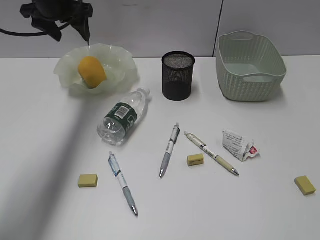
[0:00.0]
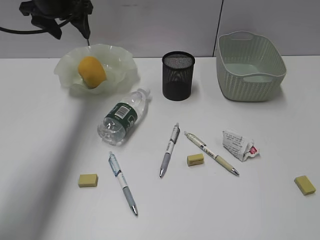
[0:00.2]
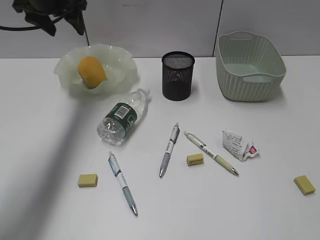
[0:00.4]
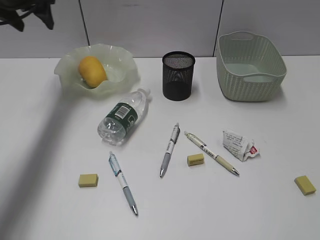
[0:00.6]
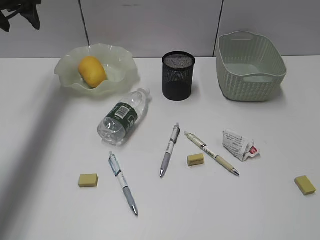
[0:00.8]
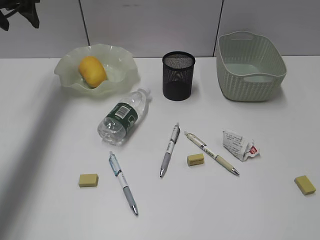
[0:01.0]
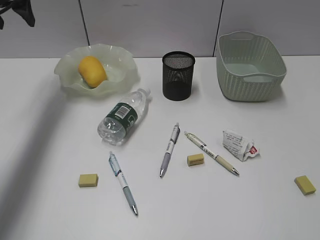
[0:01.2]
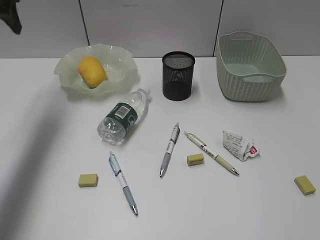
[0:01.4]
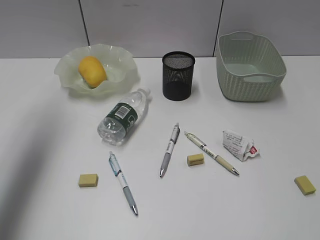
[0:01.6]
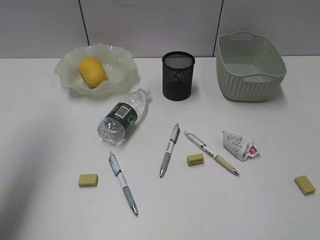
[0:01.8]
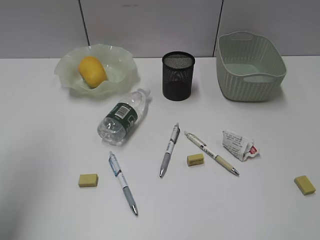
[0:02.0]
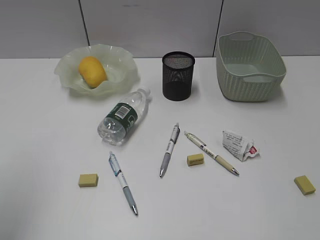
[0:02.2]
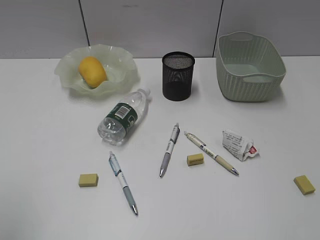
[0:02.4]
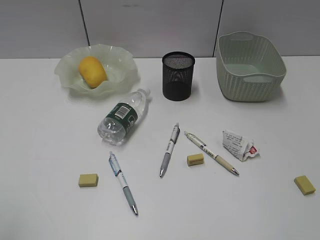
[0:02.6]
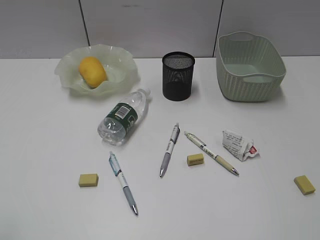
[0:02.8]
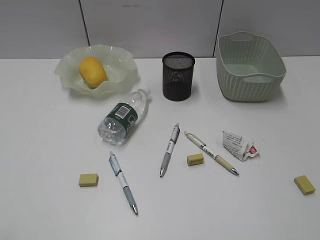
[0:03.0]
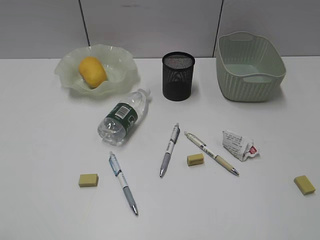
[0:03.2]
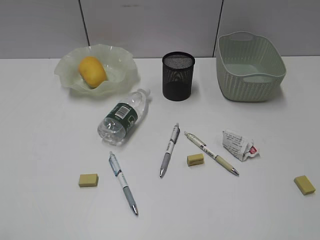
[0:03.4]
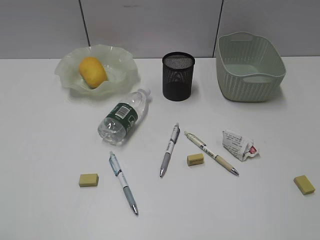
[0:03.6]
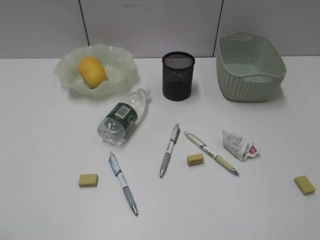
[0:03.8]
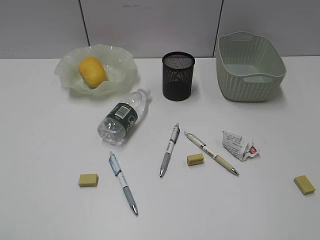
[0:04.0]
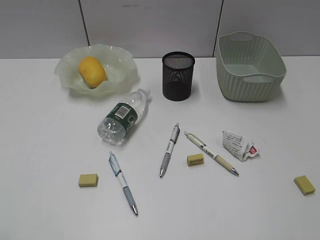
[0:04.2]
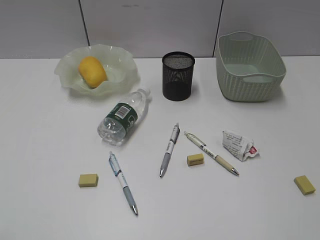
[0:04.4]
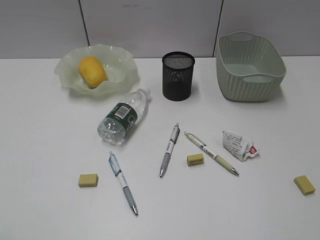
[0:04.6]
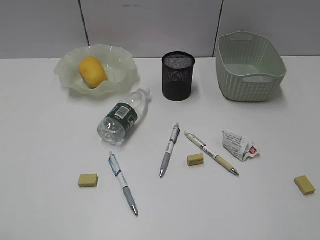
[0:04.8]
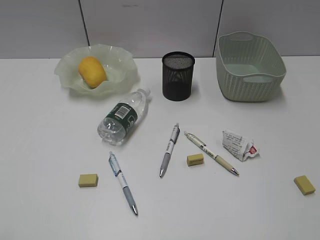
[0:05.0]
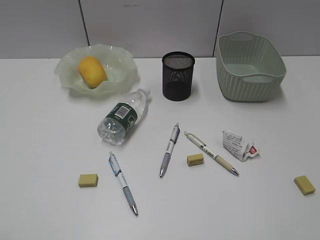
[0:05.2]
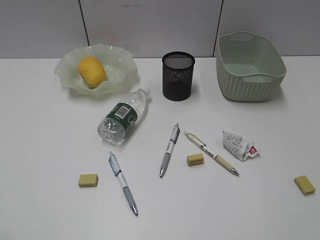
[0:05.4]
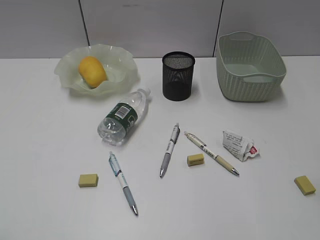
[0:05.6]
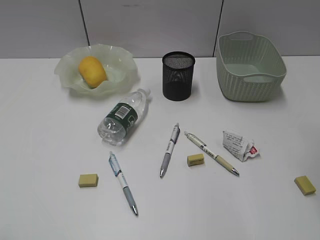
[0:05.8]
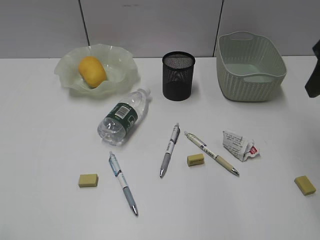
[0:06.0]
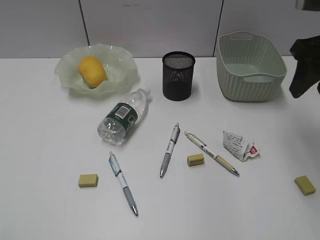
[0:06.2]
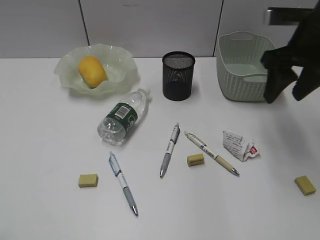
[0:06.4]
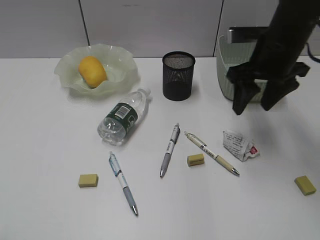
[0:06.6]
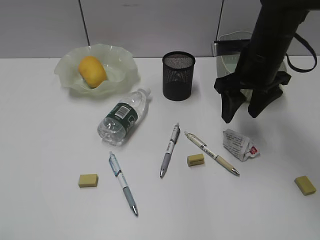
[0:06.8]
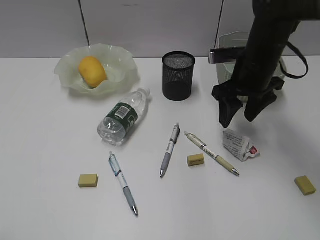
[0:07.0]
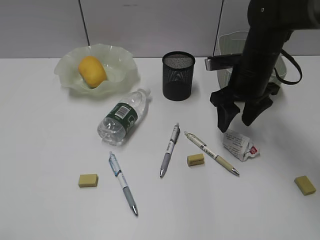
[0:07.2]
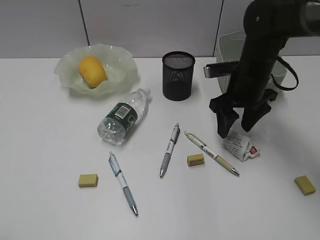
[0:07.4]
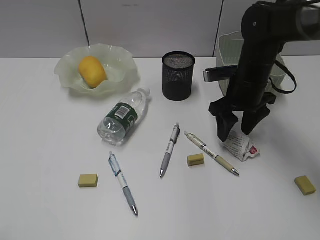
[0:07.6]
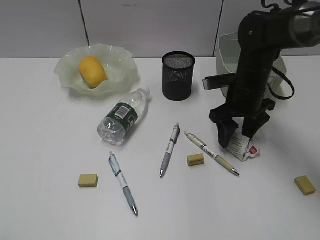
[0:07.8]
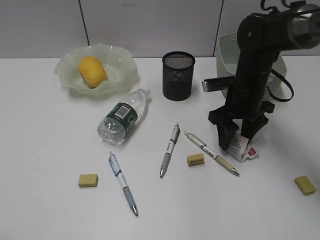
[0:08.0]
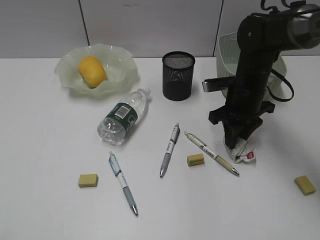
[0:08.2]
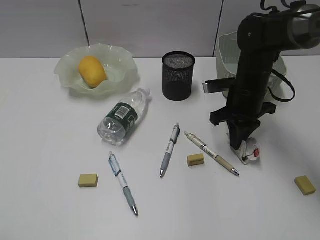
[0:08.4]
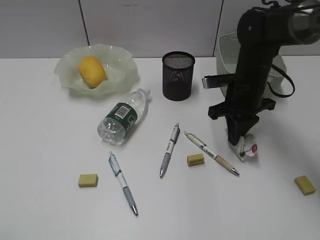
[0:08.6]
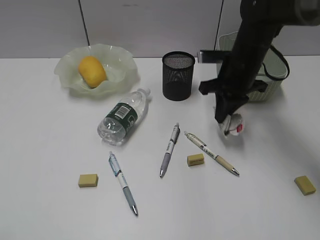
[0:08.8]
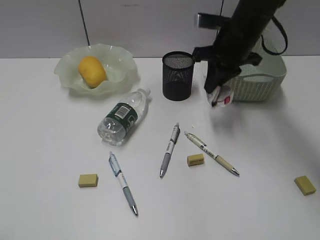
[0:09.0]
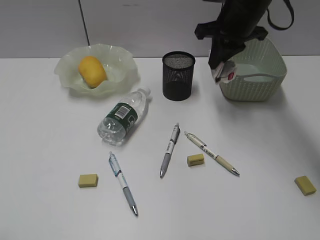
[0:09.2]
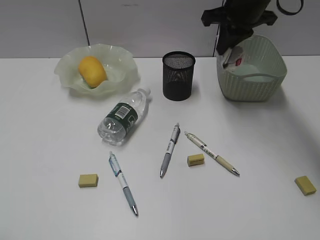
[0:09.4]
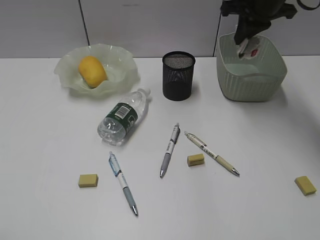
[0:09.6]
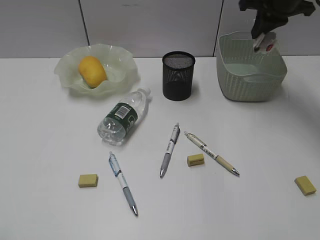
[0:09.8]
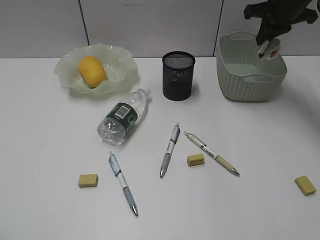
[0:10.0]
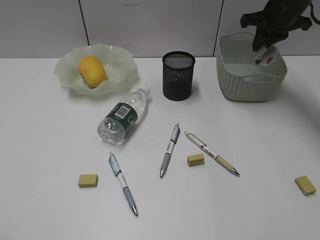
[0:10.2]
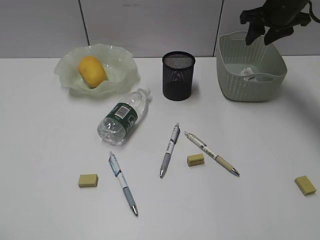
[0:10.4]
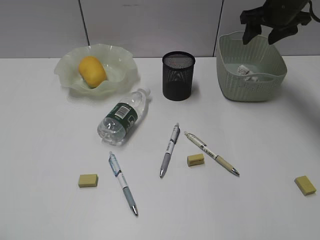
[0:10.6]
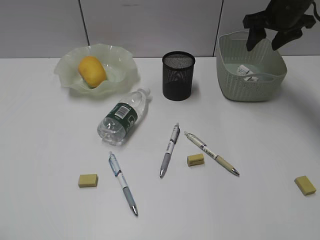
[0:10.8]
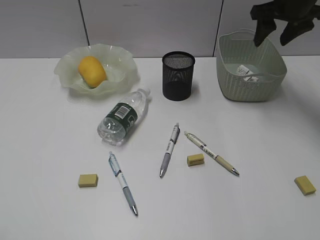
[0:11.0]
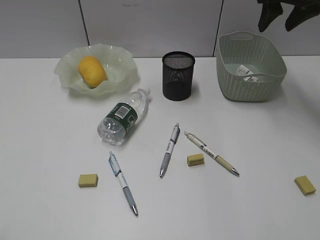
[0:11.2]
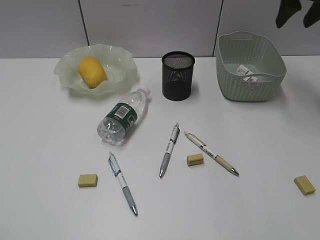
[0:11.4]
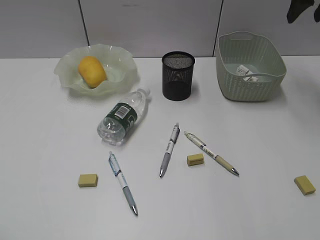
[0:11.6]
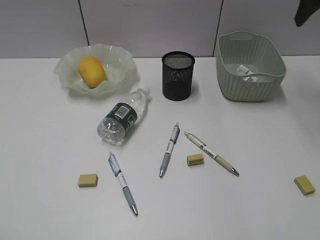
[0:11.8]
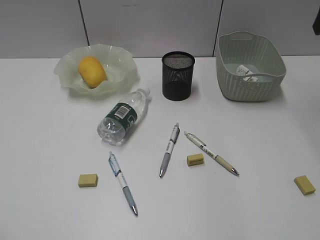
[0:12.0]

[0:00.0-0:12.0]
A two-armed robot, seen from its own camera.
Step, 0:00.0 to 0:08.4: Grasp the waste paper with right gripper.
Step, 0:08.6 to 0:10.6: Place the waste paper in the basket with right gripper.
0:00.0 to 0:01.6: The left gripper heads backward, to the left and upward, covering roughly 20 cm.
0:01.6 to 0:03.0: The left gripper shifts some 35 cm backward.
0:03.0 to 0:04.4: Both grippers stay put.
0:04.4 to 0:06.0: The right gripper travels forward by about 25 cm.
0:06.0 to 0:07.6: The right gripper shifts some 25 cm downward, forward and to the left.
0:07.6 to 0:09.0: The right gripper shifts roughly 5 cm upward, and closes its fingers.
0:09.0 to 0:10.4: The right gripper travels to the right and forward by approximately 15 cm, and opens.
0:10.4 to 0:12.0: The right gripper shifts approximately 15 cm backward and upward.

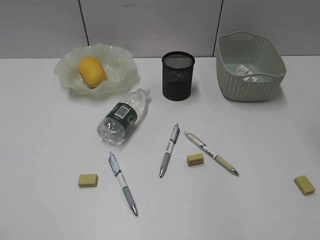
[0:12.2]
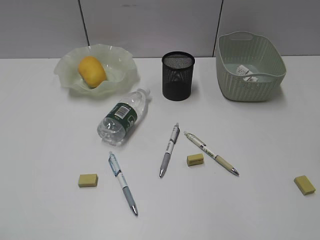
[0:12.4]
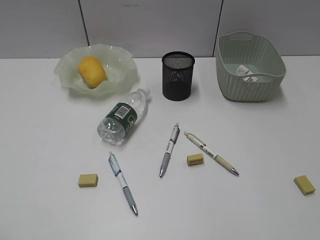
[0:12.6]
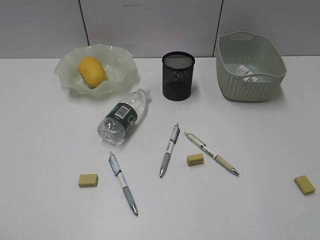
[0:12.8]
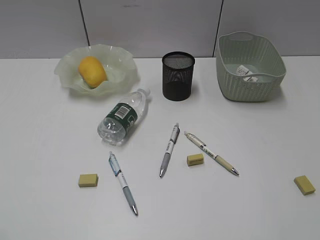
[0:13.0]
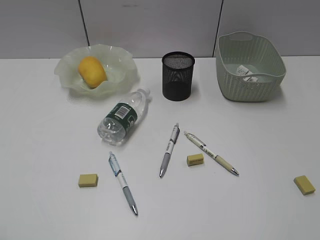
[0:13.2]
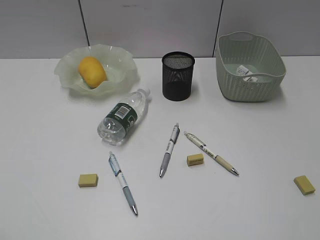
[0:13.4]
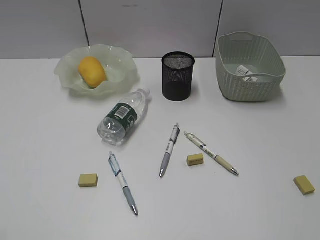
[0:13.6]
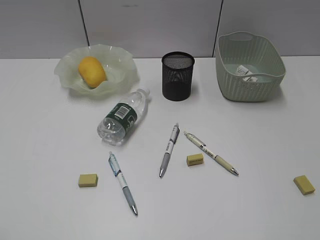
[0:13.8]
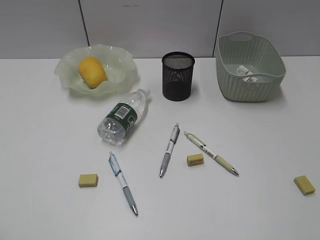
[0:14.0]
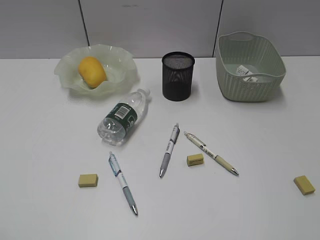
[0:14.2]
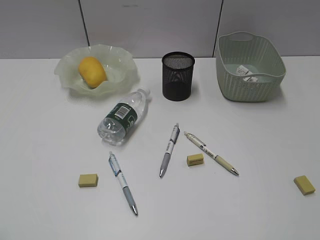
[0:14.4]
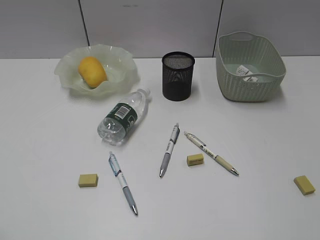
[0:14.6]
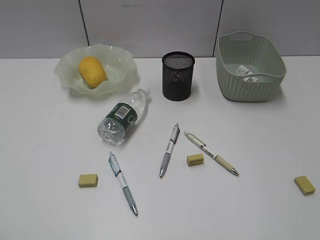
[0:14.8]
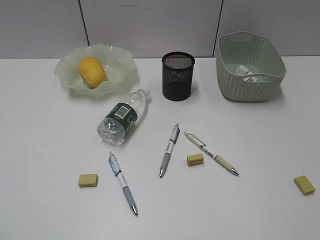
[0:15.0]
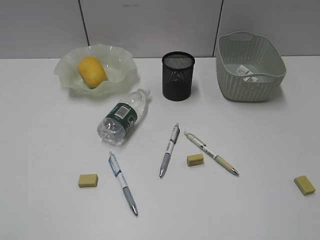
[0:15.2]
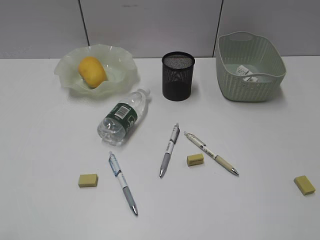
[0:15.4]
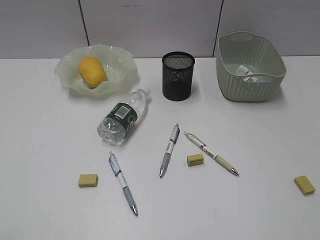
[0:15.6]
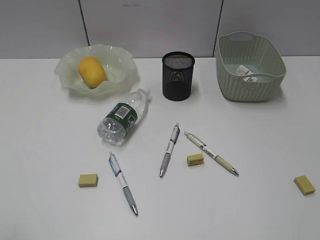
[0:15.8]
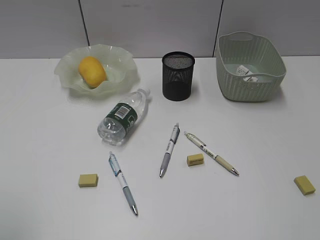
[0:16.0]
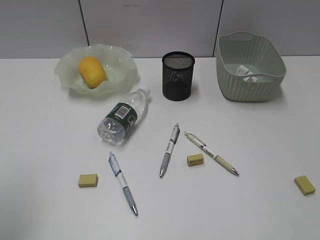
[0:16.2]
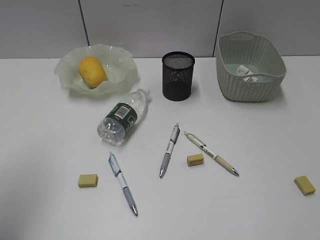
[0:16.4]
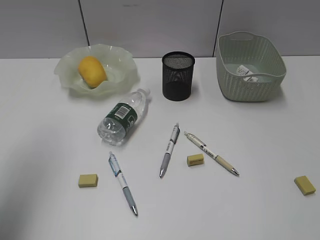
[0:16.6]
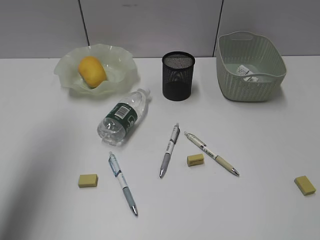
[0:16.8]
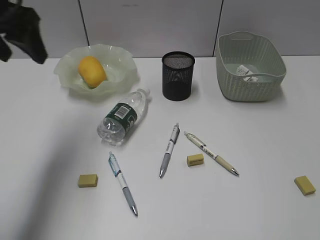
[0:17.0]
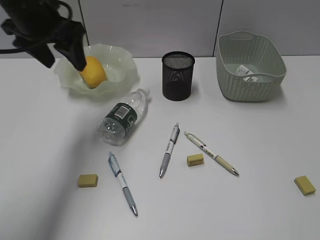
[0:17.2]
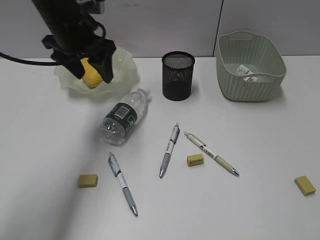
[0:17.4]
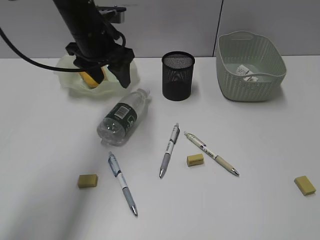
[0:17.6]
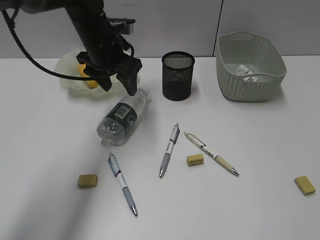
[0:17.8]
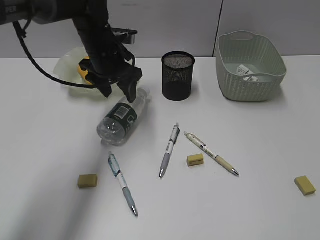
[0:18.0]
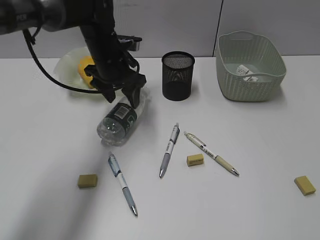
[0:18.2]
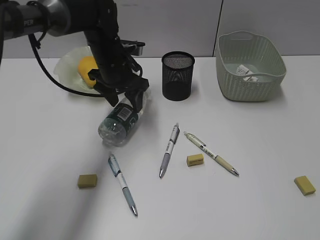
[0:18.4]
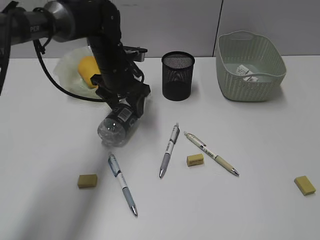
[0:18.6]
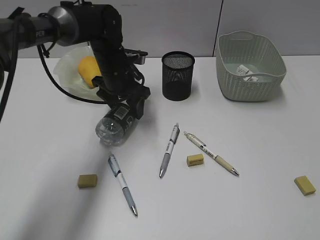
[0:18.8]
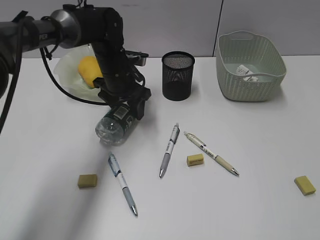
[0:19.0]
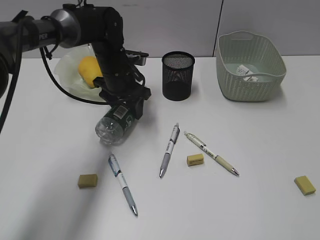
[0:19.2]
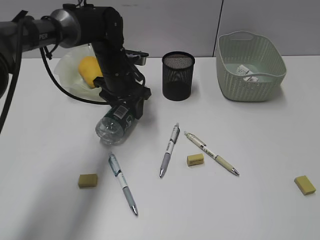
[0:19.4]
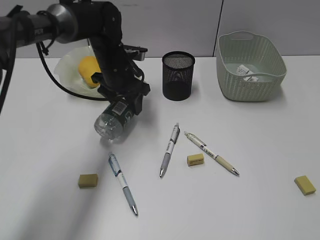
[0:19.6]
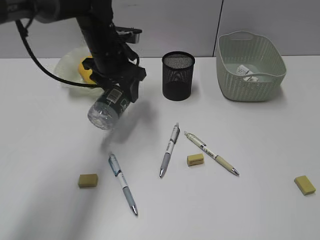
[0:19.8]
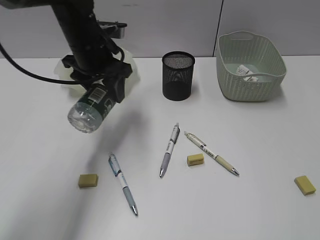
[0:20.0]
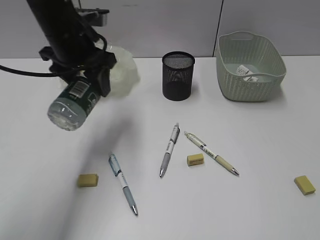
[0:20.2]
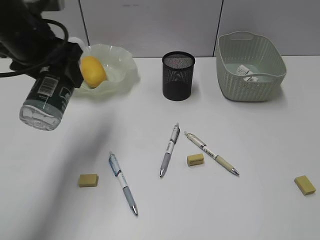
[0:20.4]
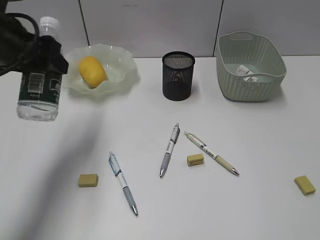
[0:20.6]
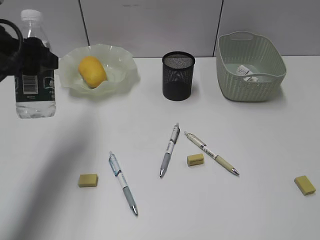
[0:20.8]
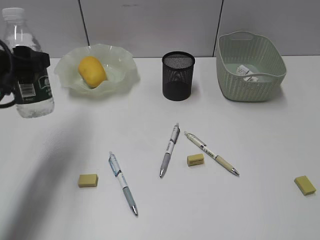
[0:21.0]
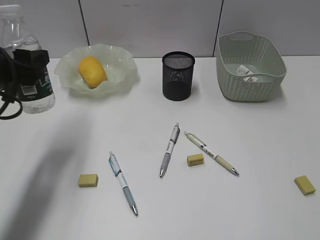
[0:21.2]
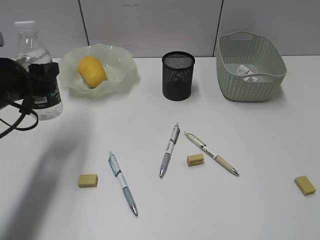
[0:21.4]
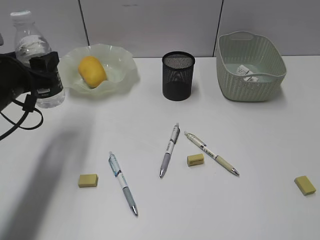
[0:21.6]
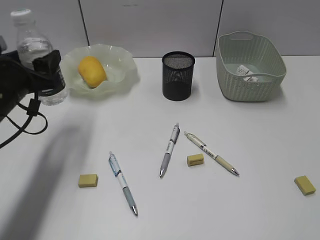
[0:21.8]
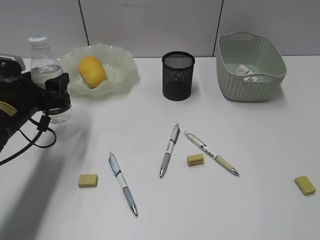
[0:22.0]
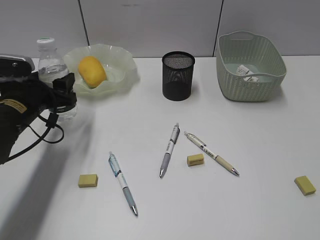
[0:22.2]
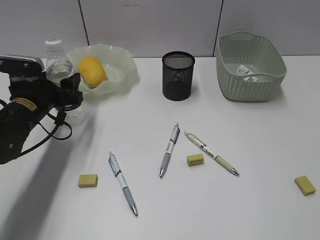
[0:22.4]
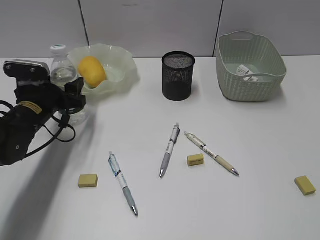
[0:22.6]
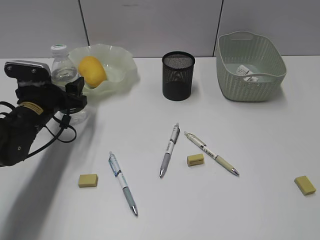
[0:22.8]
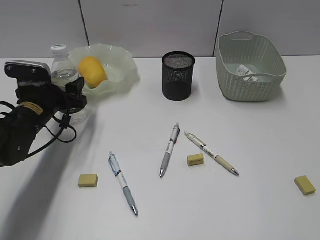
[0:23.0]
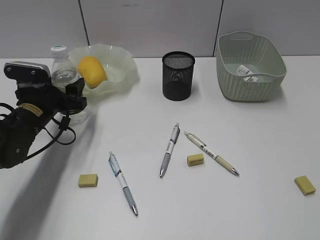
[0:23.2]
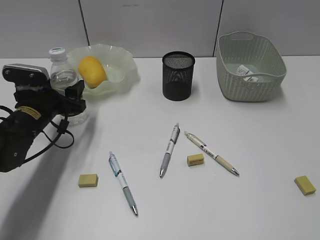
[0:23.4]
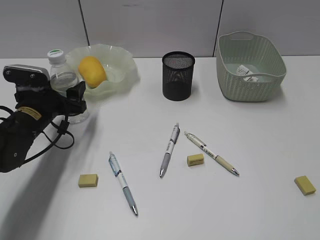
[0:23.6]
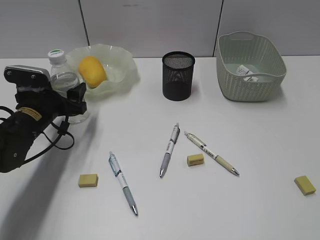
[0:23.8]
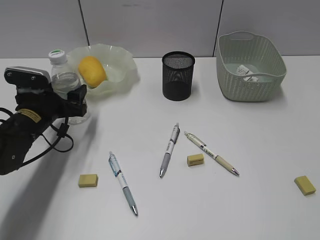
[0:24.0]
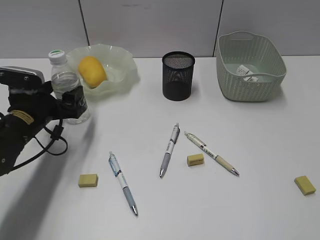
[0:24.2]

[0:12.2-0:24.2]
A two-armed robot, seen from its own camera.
Step, 0:12.2 to 0:19.4: Grasp the bottle with left gripper.
0:15.2 to 0:16.6: The left gripper heads forward, covering roughly 20 cm.
0:16.6 to 0:18.2: The left gripper heads forward, to the right and downward, covering approximately 35 cm.
0:18.2 to 0:19.8: There are only small adjustments of the grippers.
0:19.8 to 0:21.2: The left gripper is displaced backward and to the left by some 25 cm.
0:21.2 to 0:22.6: The left gripper shifts roughly 15 cm downward and forward.
0:22.6 to 0:24.2: The grippers move only a little.
